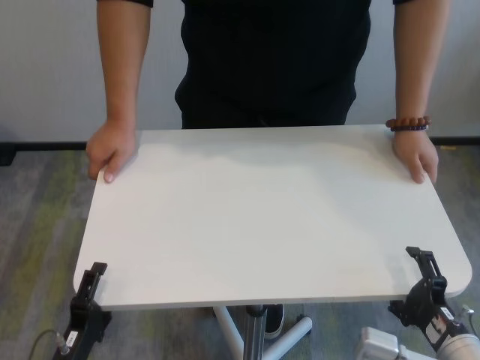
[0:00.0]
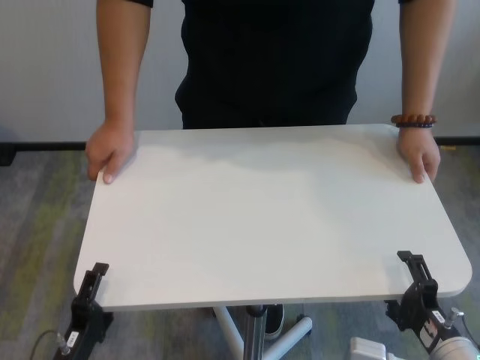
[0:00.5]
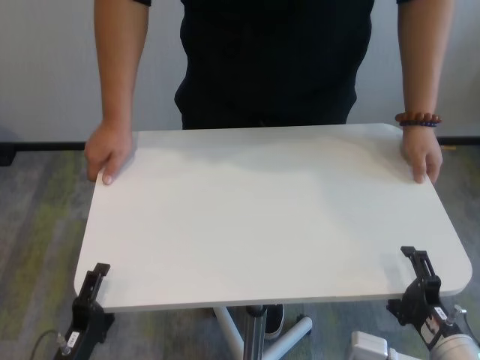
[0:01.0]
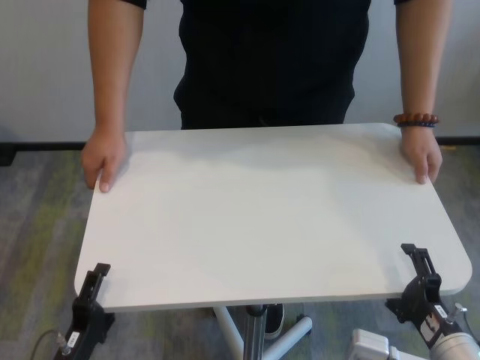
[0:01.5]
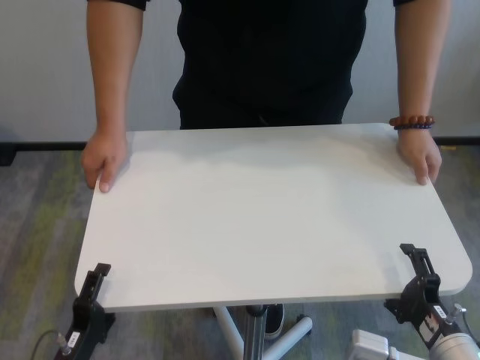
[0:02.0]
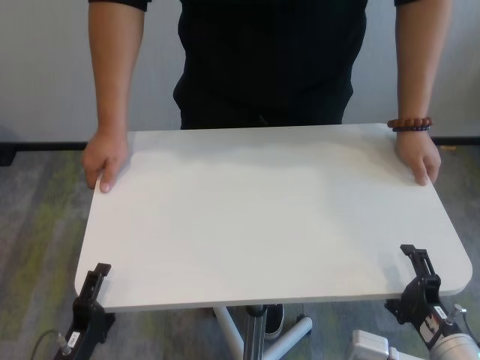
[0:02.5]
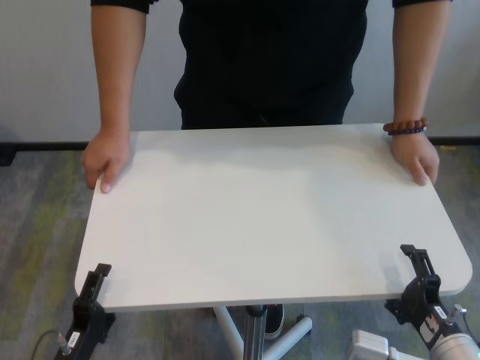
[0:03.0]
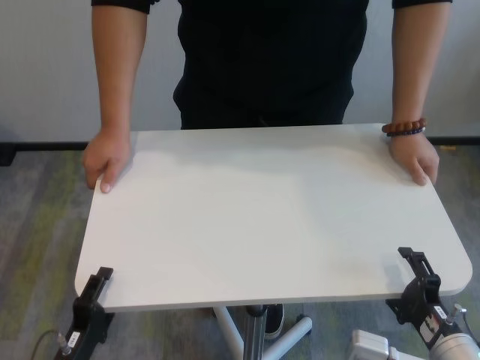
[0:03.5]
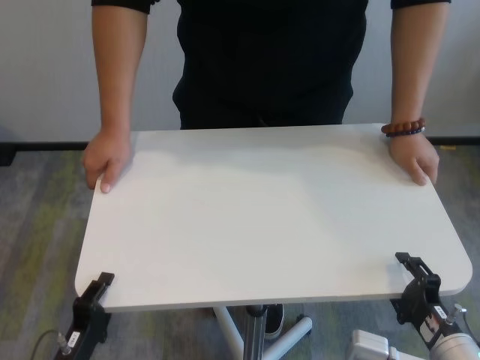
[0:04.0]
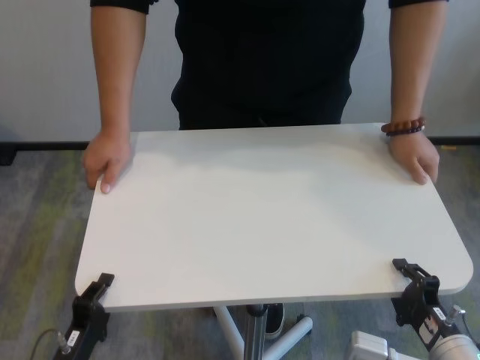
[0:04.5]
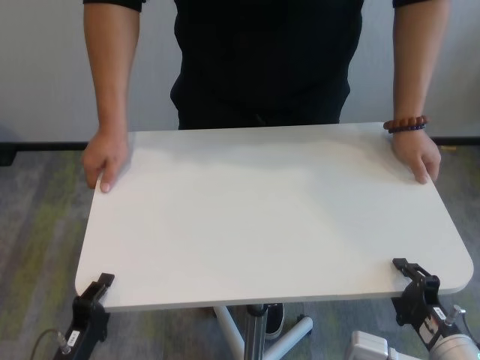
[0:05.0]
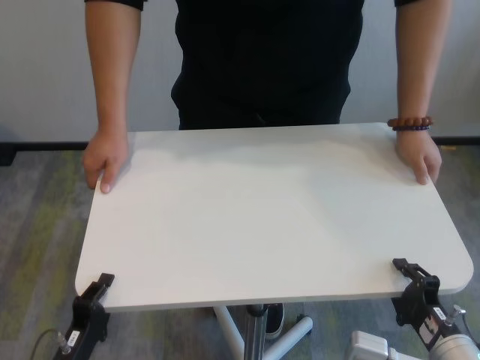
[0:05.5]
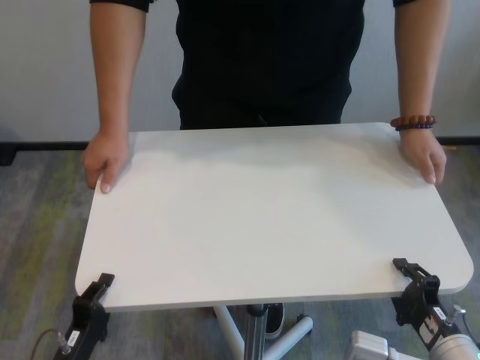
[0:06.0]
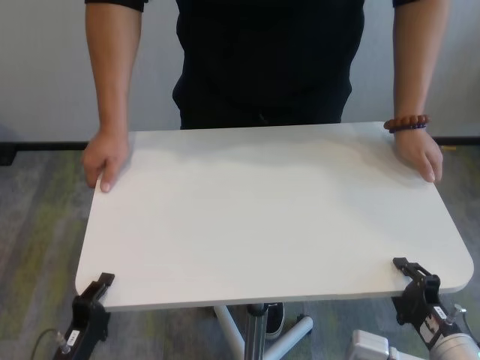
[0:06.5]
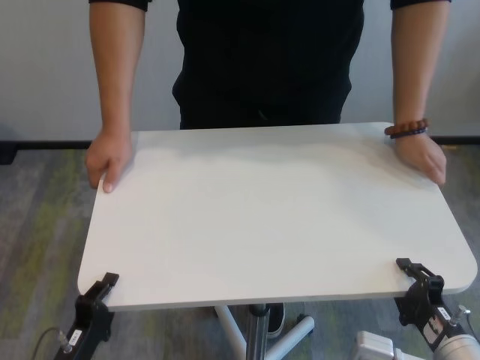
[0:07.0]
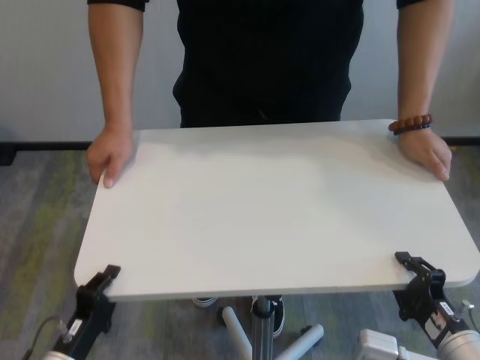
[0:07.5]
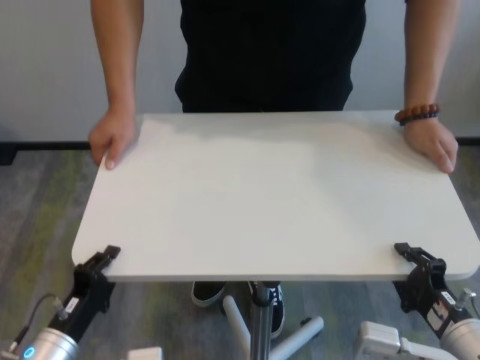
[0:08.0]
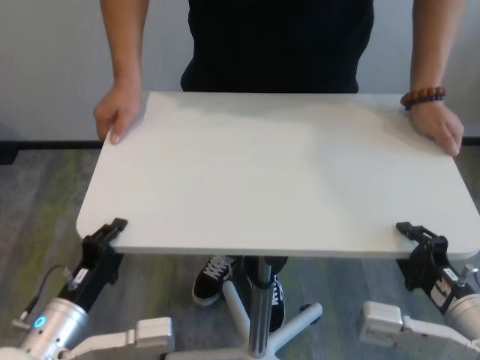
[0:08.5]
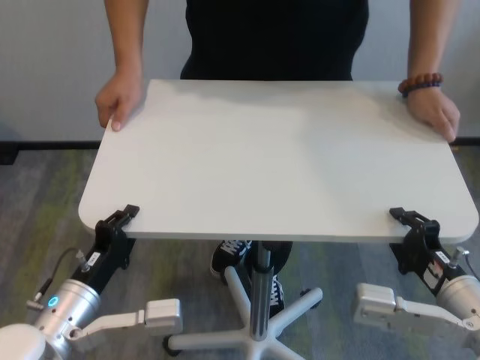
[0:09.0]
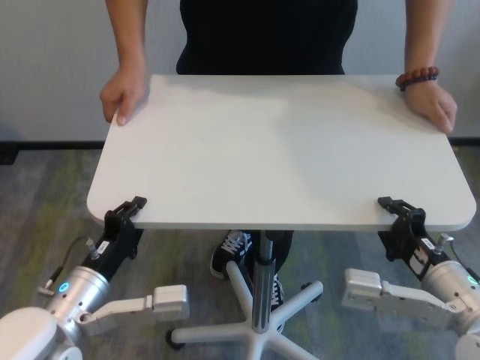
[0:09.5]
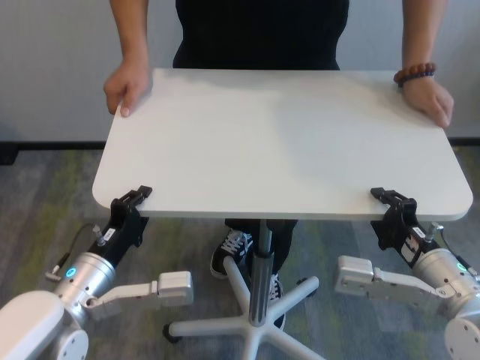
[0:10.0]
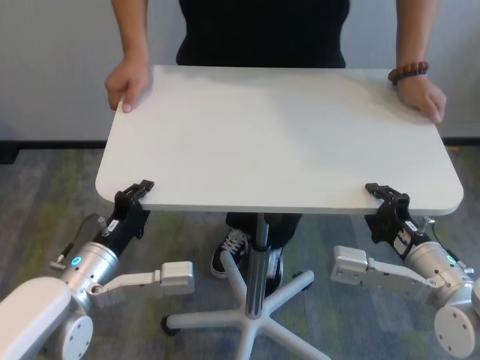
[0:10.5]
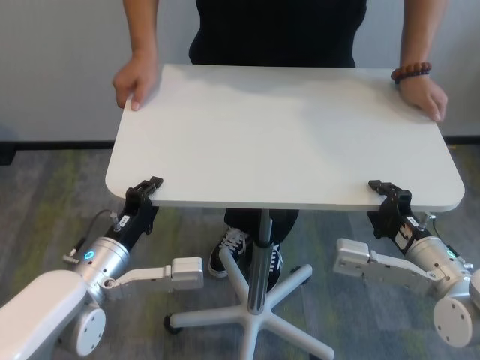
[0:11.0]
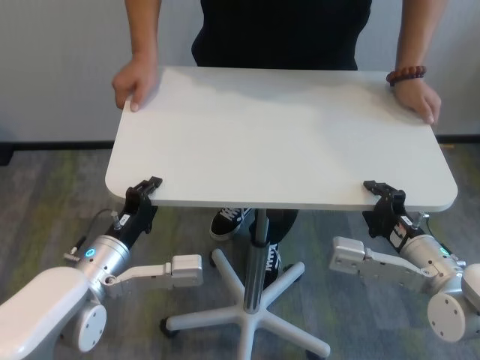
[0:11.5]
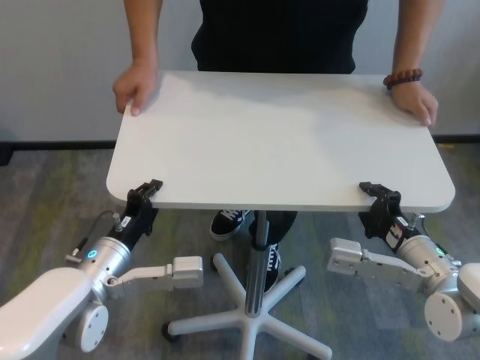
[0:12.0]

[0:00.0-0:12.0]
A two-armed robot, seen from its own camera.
Task of the whole recording: human machine collaborative table moving.
Step, 0:00.0 to 0:06.0: Grasp the table with both grippers.

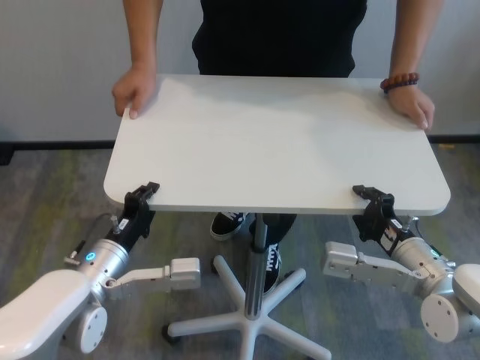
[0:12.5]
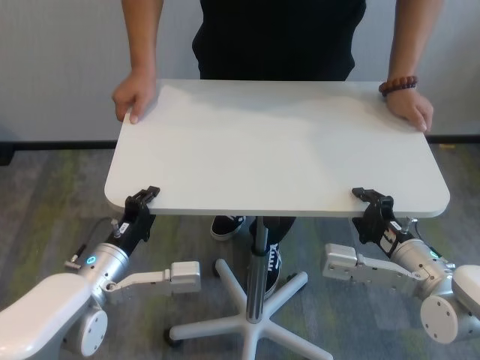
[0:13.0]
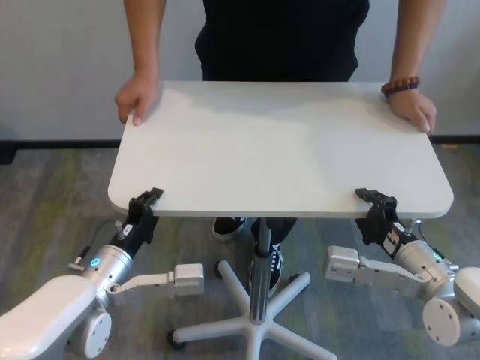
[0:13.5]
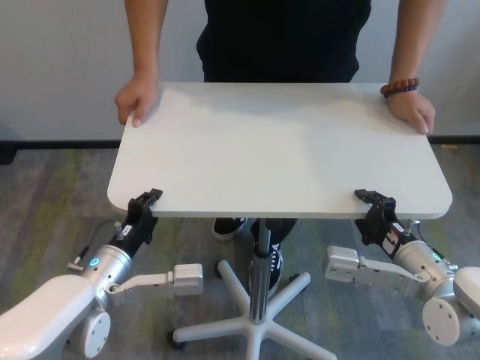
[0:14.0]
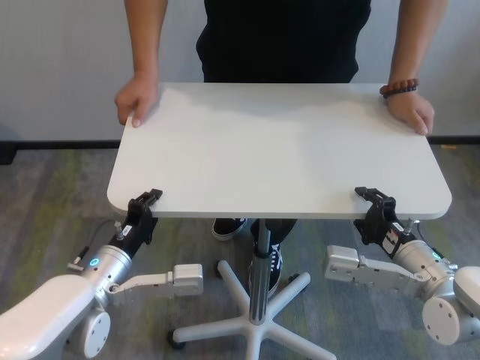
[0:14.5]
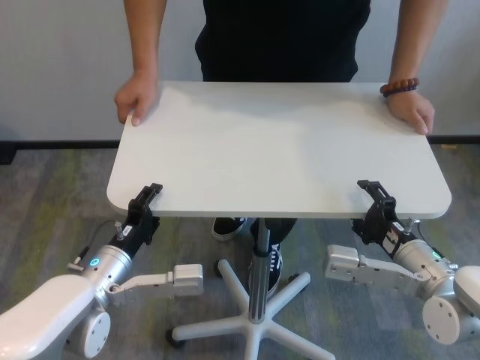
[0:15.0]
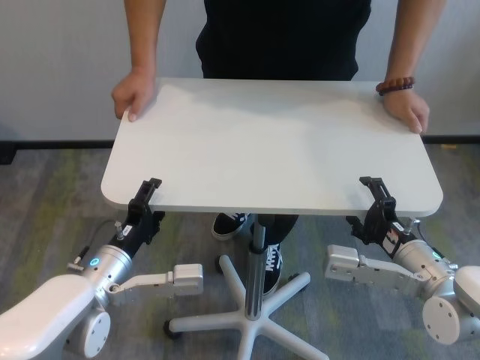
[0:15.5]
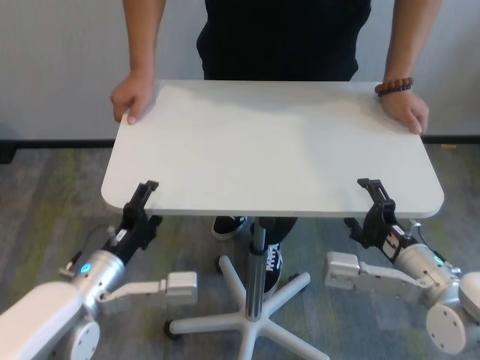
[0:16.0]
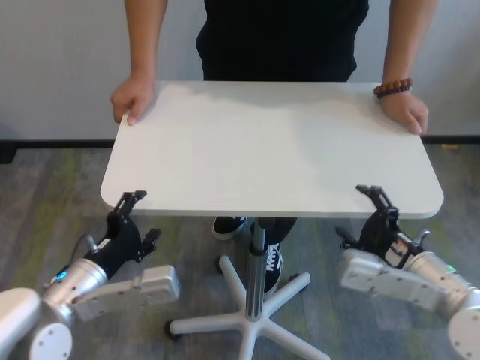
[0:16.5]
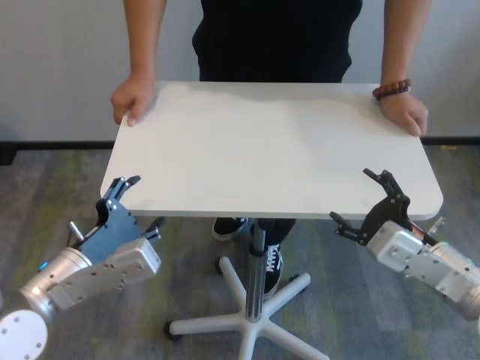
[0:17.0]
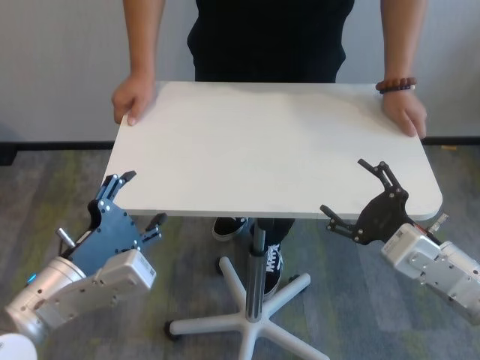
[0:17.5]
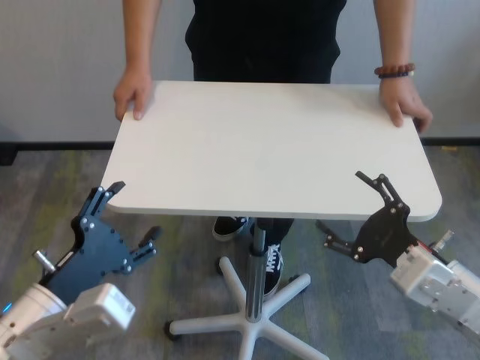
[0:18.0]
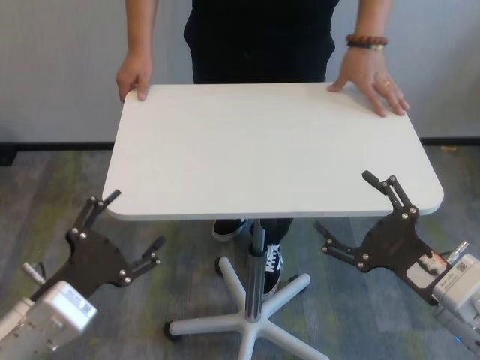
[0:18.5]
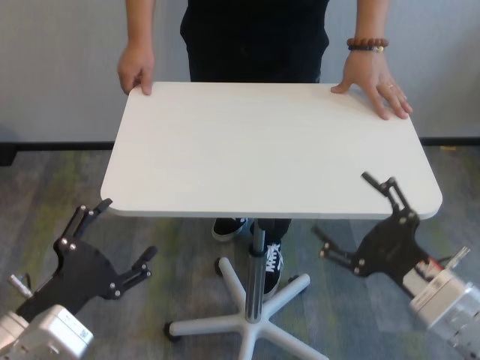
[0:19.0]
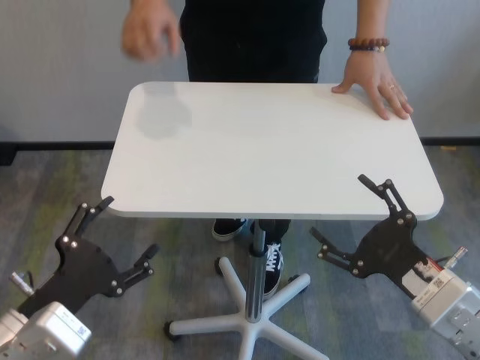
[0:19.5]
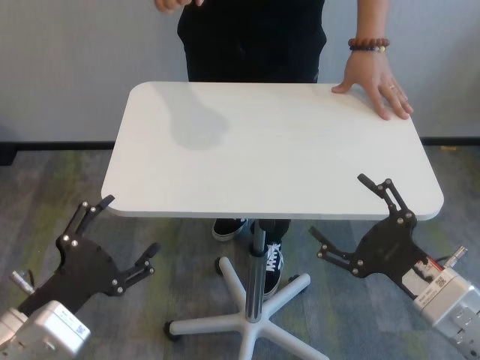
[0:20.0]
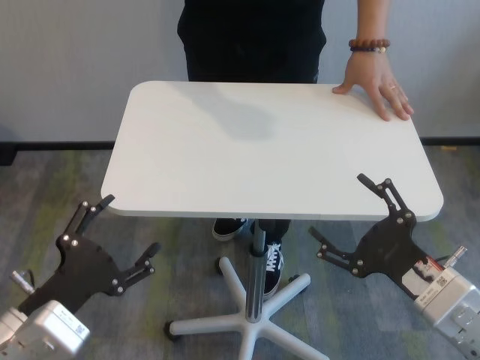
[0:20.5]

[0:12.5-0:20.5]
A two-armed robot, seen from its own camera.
Task of the whole recording: human machine collaborative table moving.
Step, 0:12.5 to 0:16.0: Move the table forward with both grippers.
